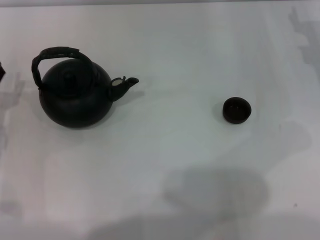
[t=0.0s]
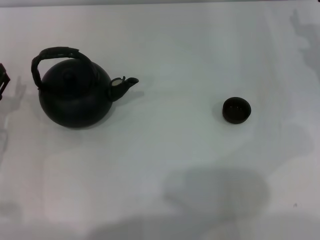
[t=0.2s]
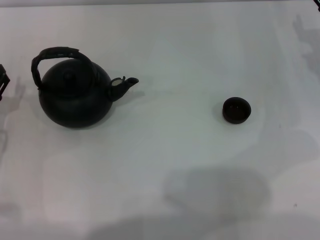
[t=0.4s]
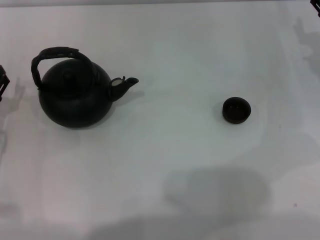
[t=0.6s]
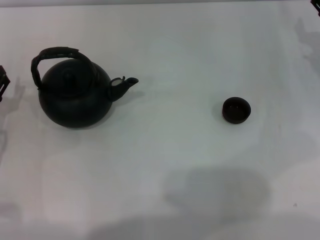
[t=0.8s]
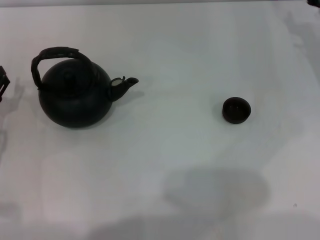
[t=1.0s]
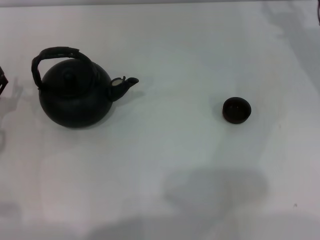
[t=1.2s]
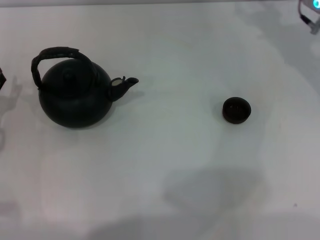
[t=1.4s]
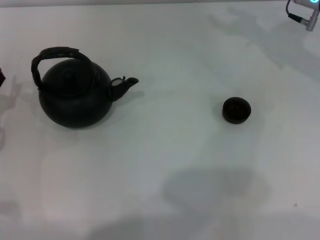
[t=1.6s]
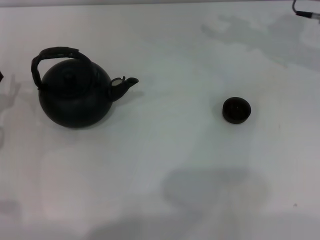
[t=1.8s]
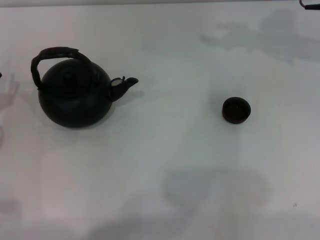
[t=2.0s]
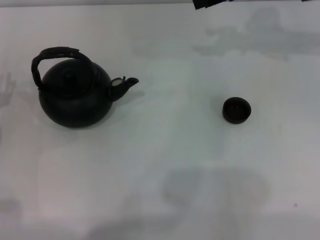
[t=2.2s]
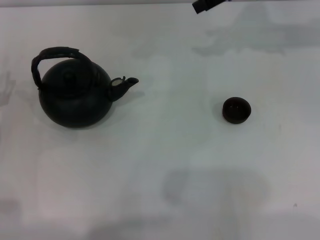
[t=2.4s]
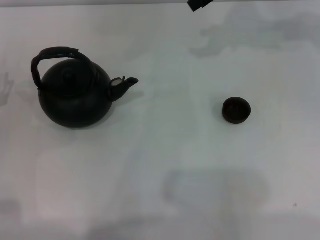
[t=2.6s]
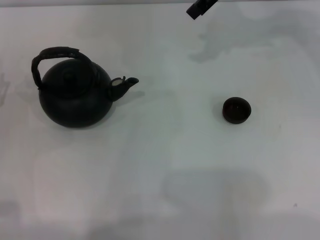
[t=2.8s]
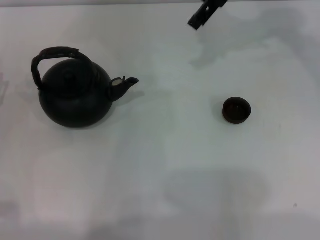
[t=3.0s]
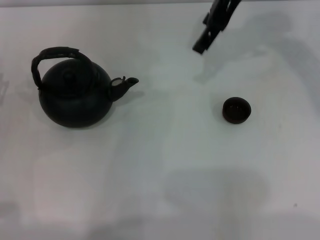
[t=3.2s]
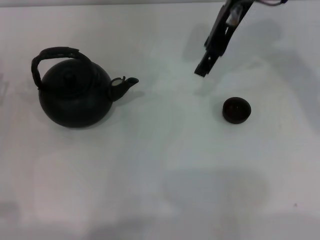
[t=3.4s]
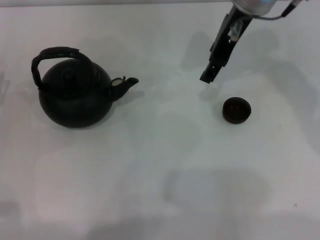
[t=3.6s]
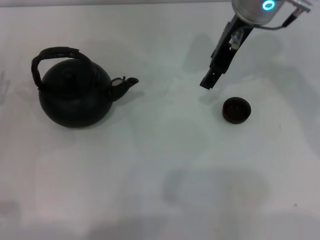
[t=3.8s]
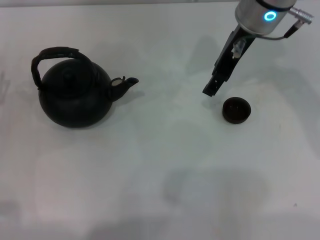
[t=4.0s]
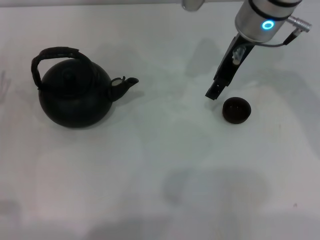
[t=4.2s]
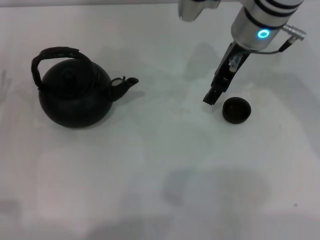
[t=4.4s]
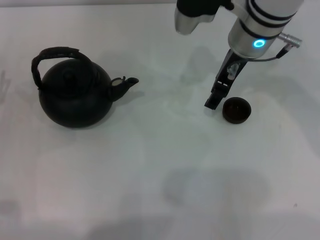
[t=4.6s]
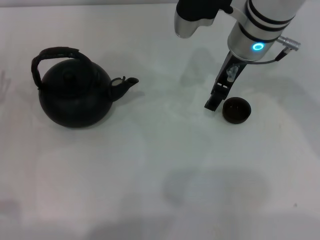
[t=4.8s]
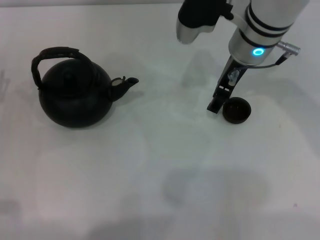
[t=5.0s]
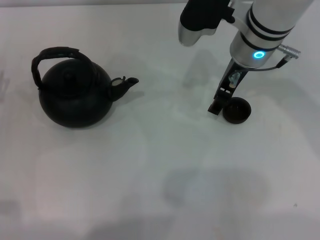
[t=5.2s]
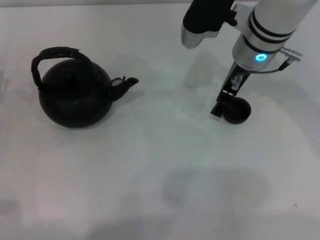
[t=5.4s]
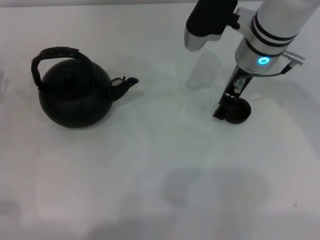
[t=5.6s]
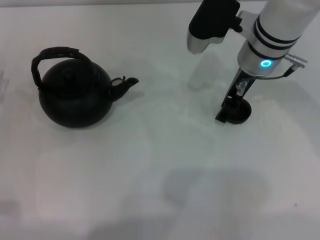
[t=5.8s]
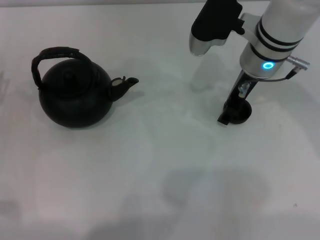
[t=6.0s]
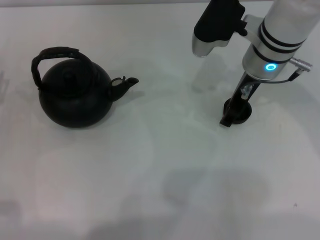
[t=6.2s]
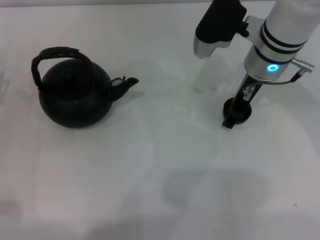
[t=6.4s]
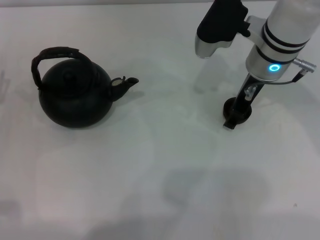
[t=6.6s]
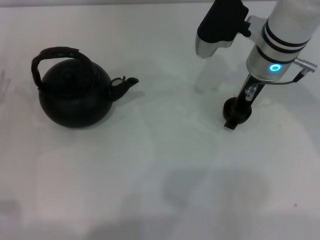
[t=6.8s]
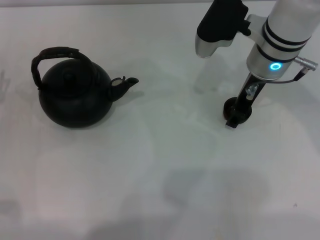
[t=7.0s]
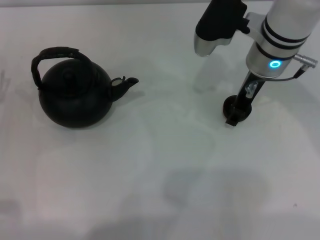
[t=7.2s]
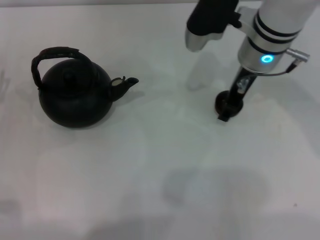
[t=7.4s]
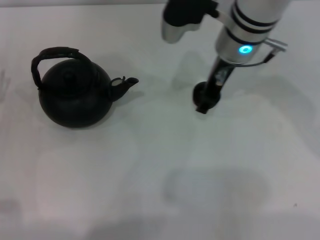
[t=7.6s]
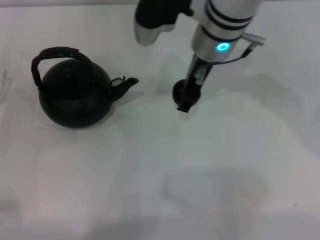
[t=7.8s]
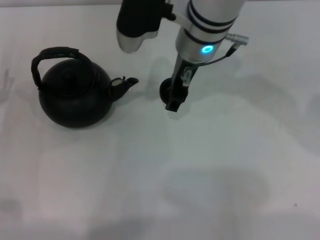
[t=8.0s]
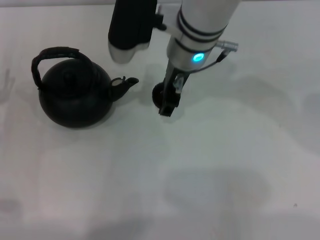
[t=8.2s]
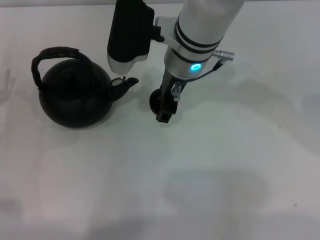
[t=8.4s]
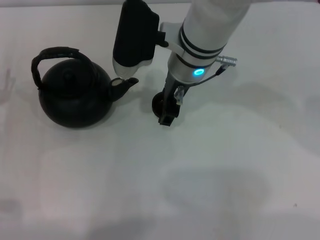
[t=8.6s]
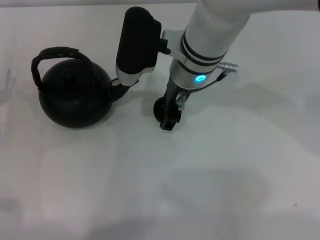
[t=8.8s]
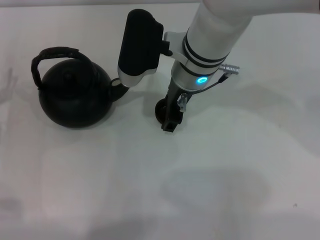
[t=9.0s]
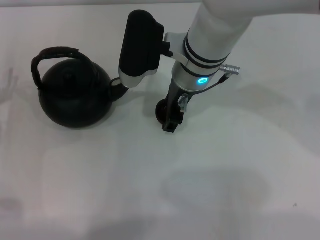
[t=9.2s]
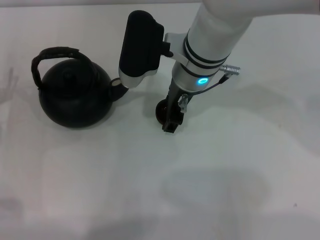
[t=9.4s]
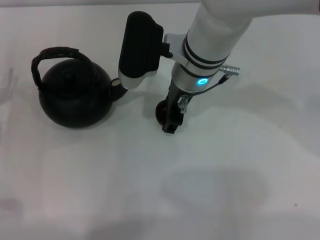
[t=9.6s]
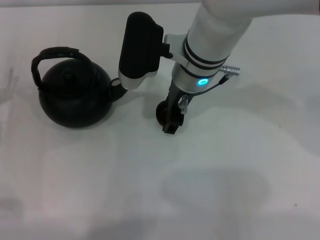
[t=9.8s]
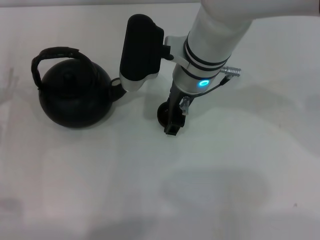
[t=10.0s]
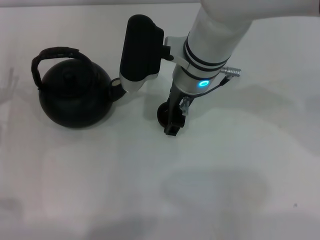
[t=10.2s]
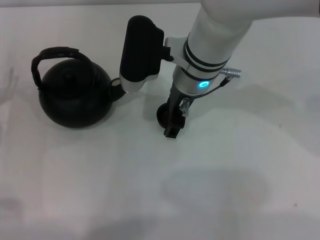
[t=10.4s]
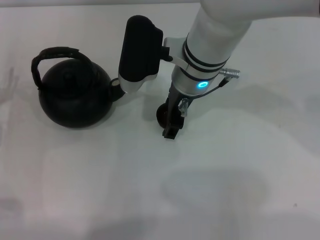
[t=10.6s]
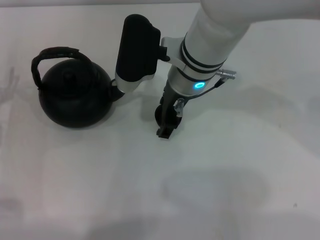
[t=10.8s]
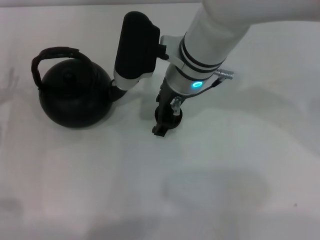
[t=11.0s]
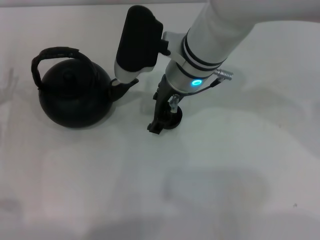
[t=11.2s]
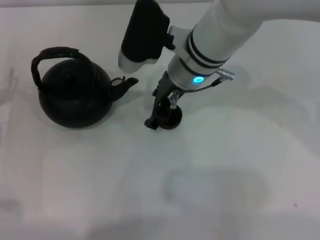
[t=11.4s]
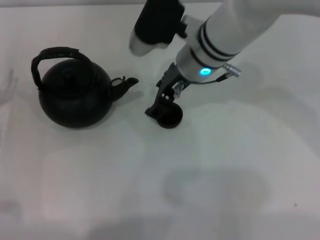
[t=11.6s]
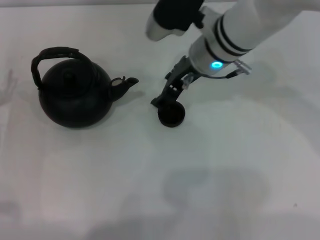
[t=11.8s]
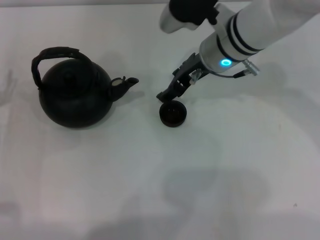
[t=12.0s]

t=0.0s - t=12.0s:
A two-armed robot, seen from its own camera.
Task of the whole recording: Grasp the handle of the teapot with one hand and pour tea into the teacup.
Step, t=0.0s - t=7.4s: Pick up the teacup with the right gripper.
t=0.0s - t=1.6s: The right gripper shifts approximately 10 cm to the left and upward.
t=1.6s - t=3.0s: The right gripper is displaced upward and to the left by approximately 15 cm.
t=3.0s - t=4.4s: The right gripper is displaced downward and backward by approximately 10 cm.
t=4.4s - t=6.0s: The right gripper moves roughly 5 cm.
t=6.0s - t=7.6s: The grippers make only small movements.
t=7.6s - t=9.0s: The right gripper is displaced to the left by some 5 cm.
t=9.0s - t=10.4s: The two grippers keep their place.
t=10.4s - t=12.0s: The right gripper heads to the right, covering roughly 5 cm.

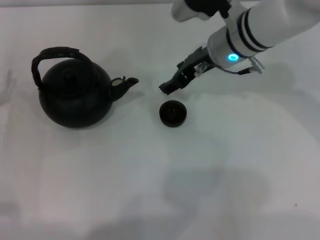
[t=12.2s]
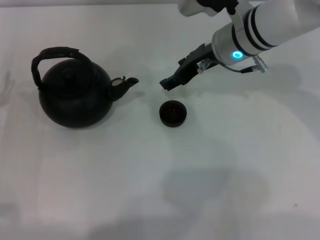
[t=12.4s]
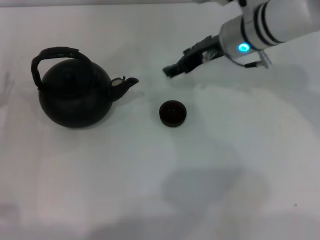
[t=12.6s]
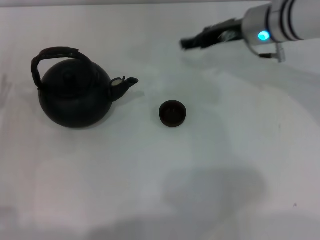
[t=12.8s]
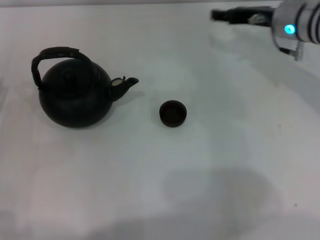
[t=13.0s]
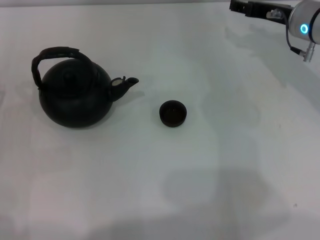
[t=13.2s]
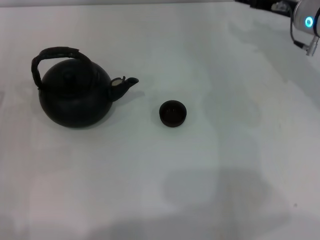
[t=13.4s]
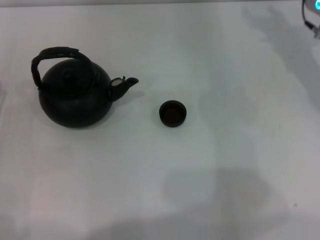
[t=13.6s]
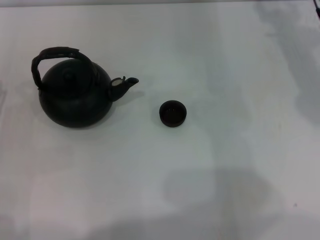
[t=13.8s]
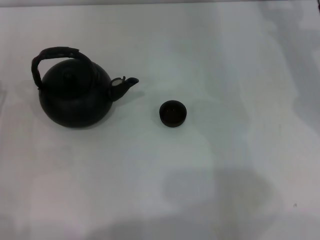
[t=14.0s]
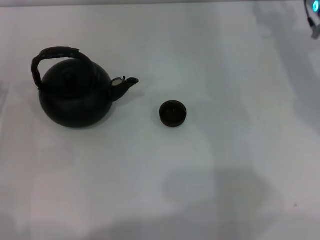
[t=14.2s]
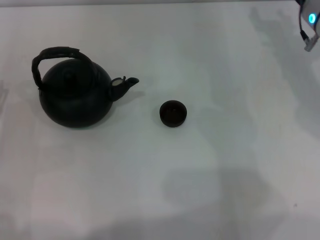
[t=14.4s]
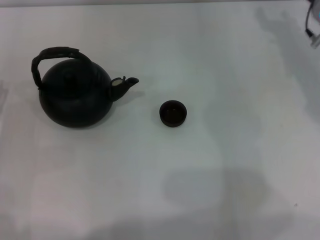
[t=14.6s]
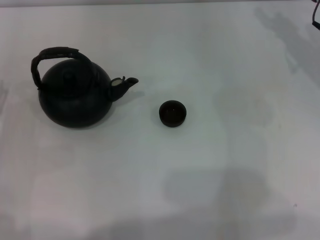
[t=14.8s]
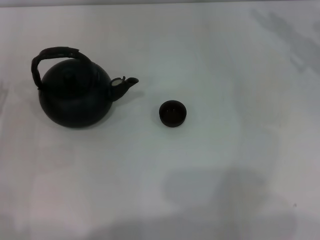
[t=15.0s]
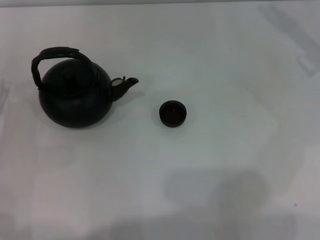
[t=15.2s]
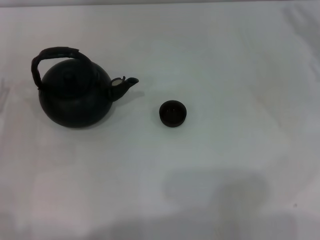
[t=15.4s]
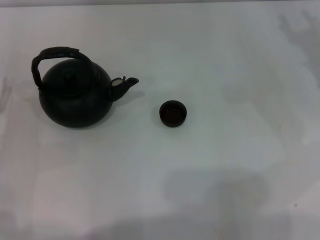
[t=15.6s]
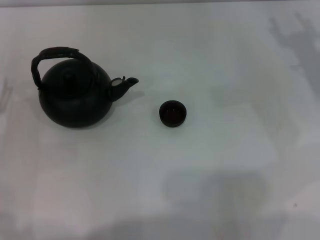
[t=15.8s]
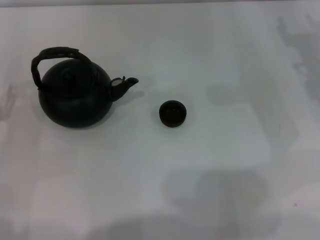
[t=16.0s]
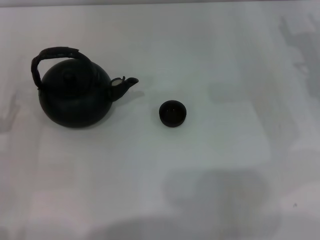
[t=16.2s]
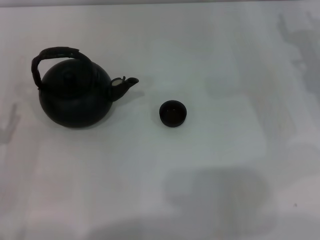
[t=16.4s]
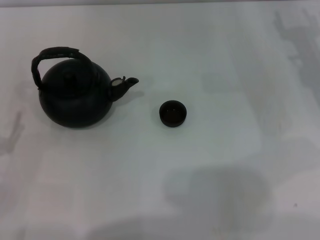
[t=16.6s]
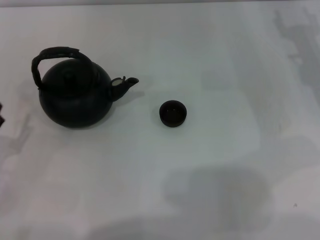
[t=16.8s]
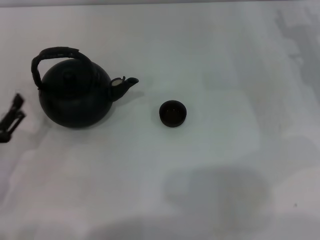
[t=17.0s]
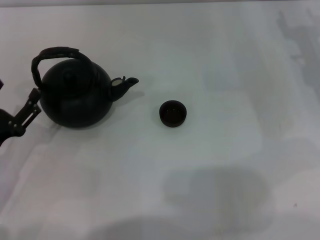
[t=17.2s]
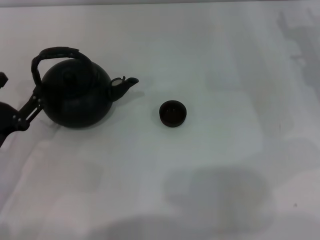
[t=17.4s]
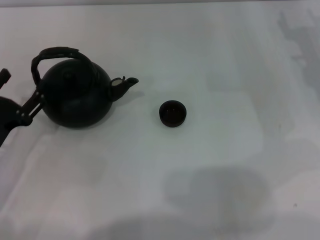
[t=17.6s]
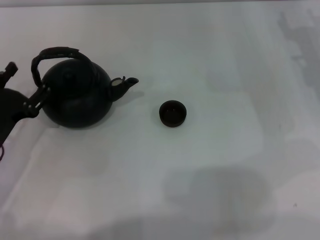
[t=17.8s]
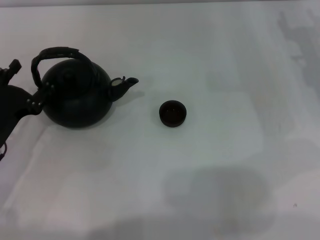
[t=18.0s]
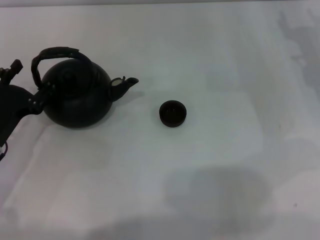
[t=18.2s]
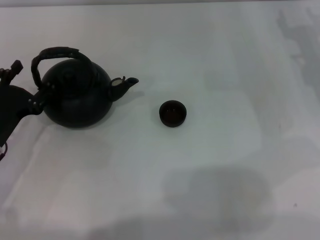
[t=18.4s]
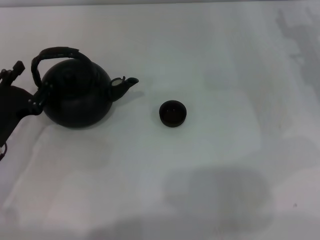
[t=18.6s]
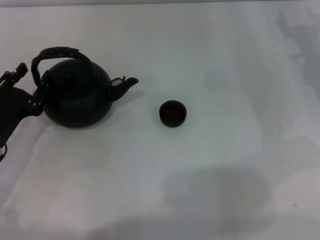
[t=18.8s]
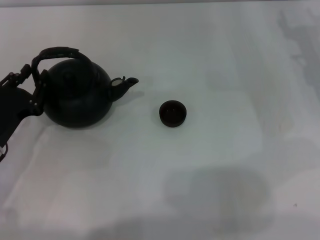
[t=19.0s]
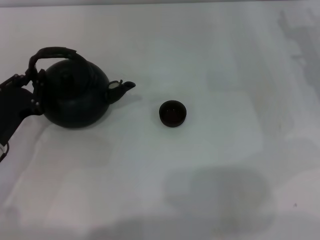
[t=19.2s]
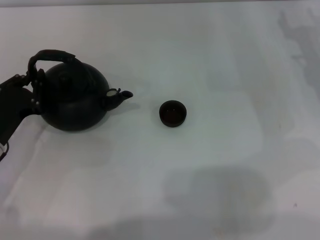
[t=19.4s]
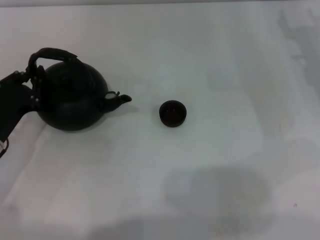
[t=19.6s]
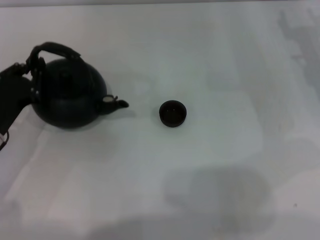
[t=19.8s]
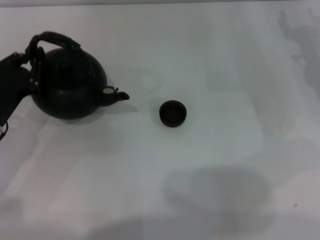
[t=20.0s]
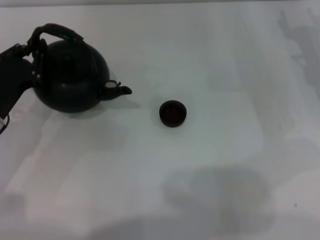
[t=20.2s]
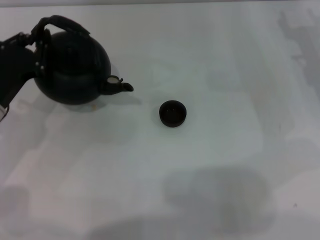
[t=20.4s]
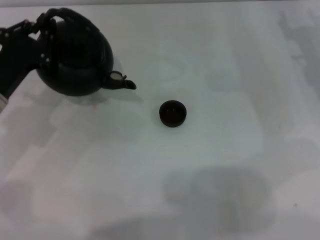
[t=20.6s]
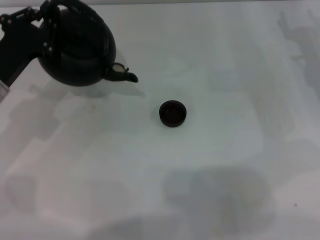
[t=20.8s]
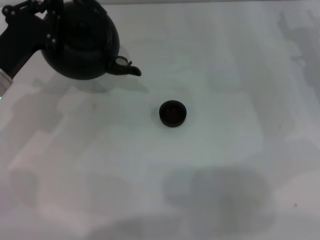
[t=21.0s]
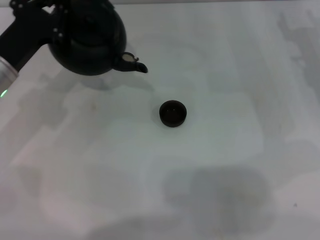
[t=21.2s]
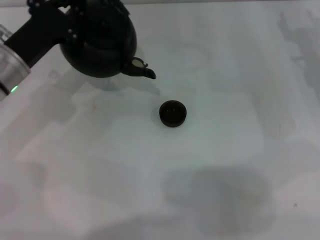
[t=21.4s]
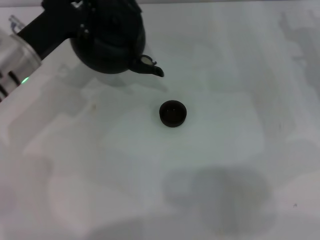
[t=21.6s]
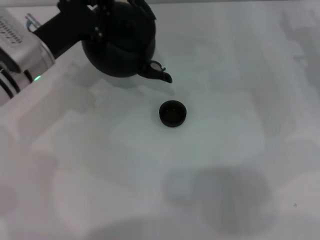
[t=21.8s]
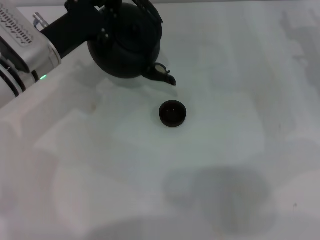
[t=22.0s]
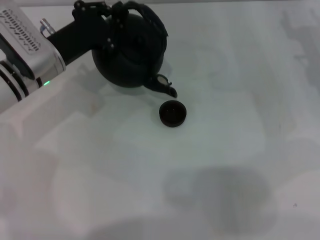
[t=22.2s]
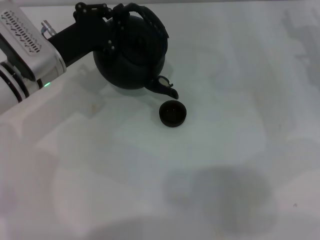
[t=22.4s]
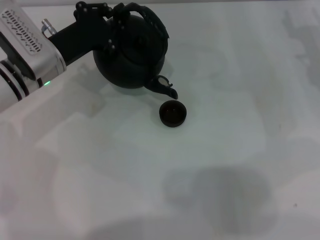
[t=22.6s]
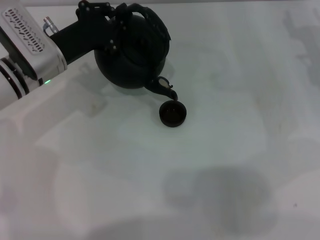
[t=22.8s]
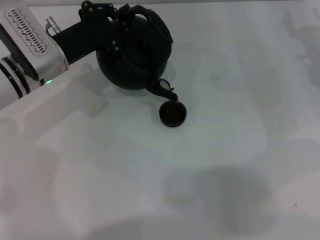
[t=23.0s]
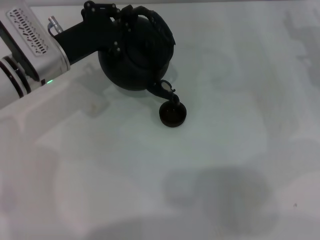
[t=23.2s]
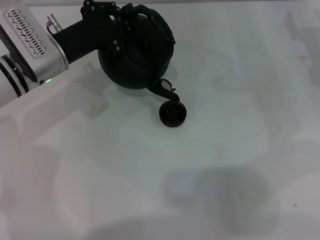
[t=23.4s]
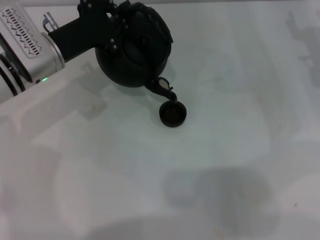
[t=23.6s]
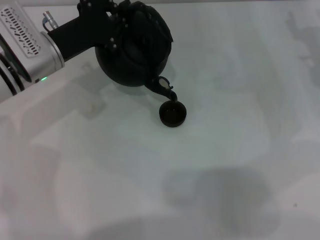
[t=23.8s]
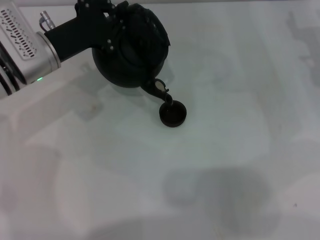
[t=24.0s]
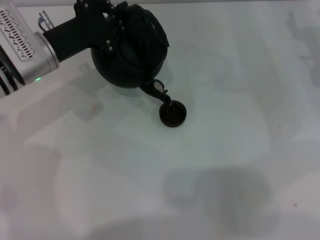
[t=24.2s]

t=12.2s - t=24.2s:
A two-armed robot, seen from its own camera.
Task of the whole recording: Grasp the handle of the teapot with one hand and pour tea into the teacup.
Step, t=12.2s - t=20.6s: Pick up the teapot with the left gripper.
t=12.2s - t=13.8s: The right gripper shifts roughly 15 cm to the right.
t=16.6s - t=18.2s: The left gripper travels forward by about 10 cm.
t=18.2s - t=19.8s: The left gripper closes up.
t=19.8s - t=21.2s: The left gripper heads forward and upward, covering some 10 cm.
t=21.2s - t=22.6s: The left gripper moves to the right, approximately 5 cm.
t=22.6s - t=24.2s: The grippers move only a little.
